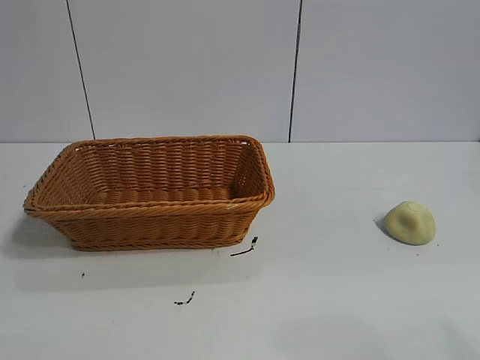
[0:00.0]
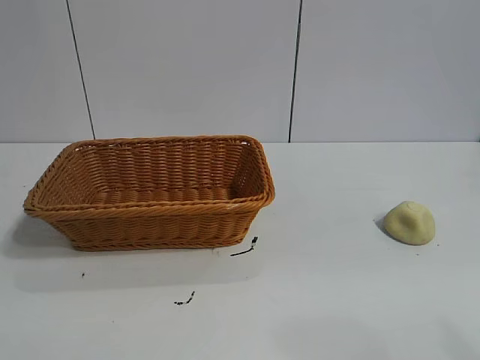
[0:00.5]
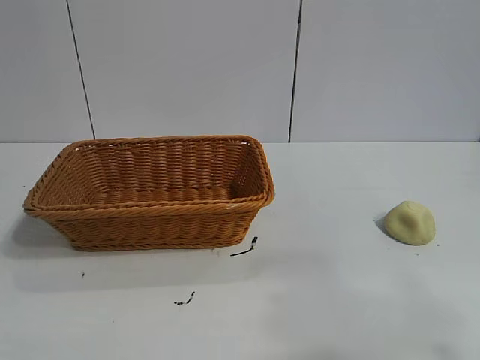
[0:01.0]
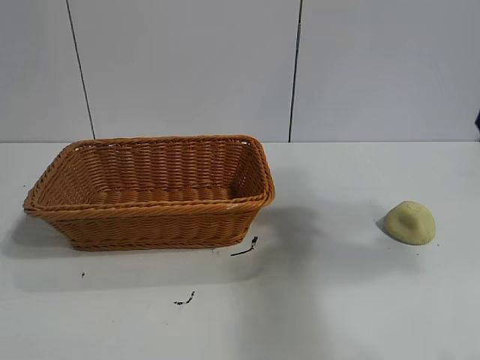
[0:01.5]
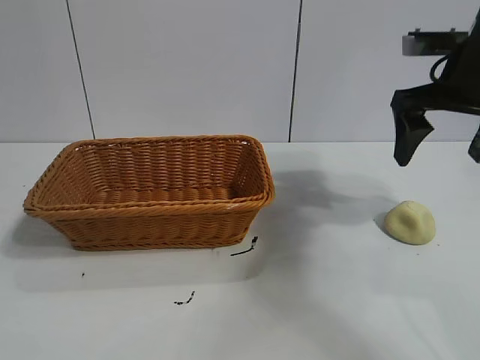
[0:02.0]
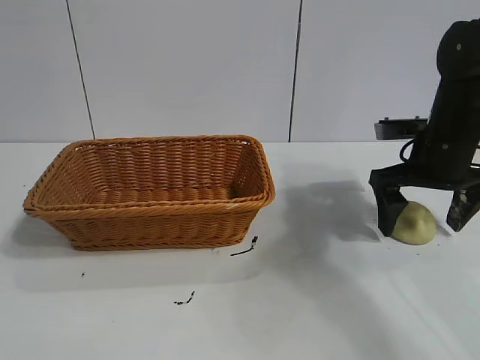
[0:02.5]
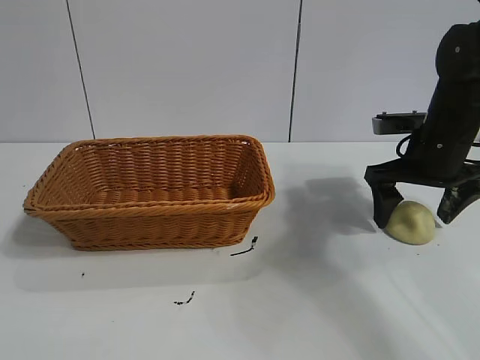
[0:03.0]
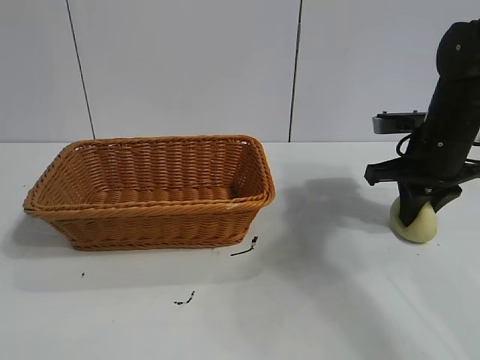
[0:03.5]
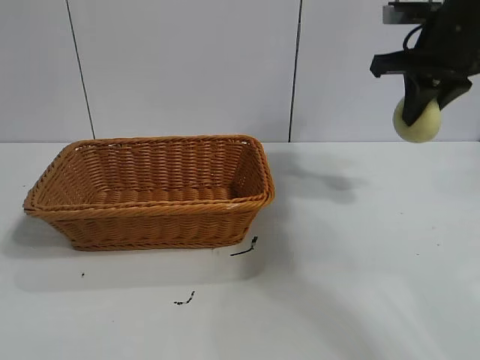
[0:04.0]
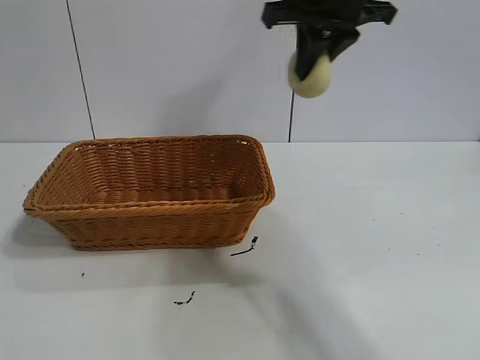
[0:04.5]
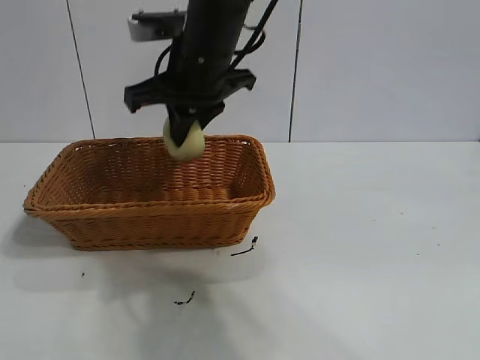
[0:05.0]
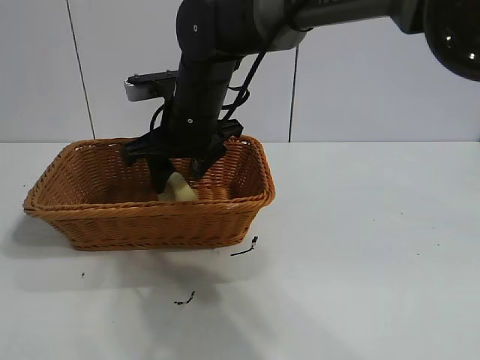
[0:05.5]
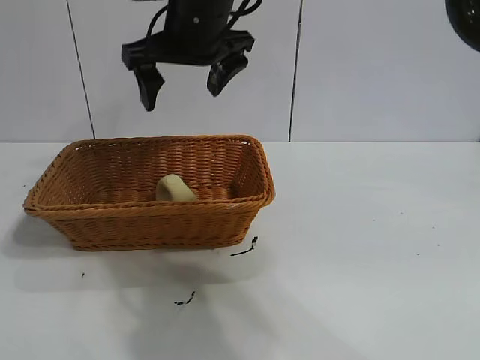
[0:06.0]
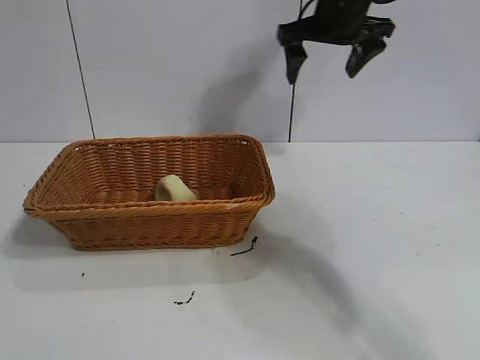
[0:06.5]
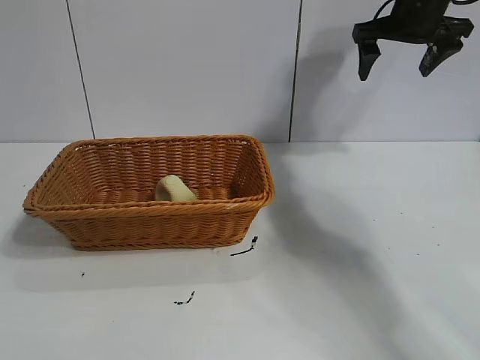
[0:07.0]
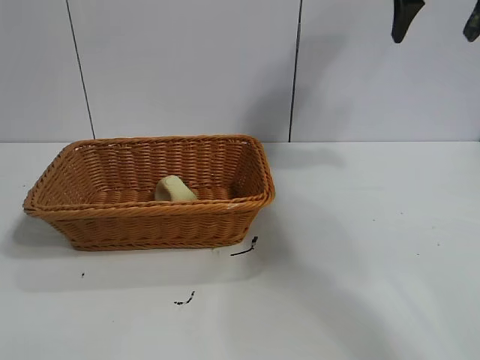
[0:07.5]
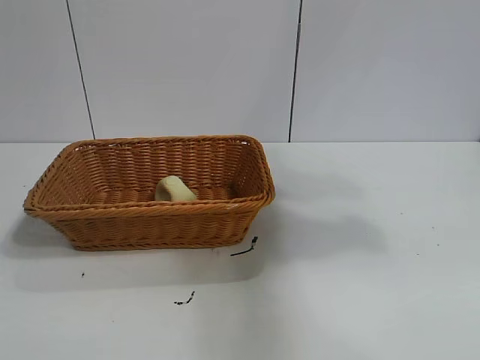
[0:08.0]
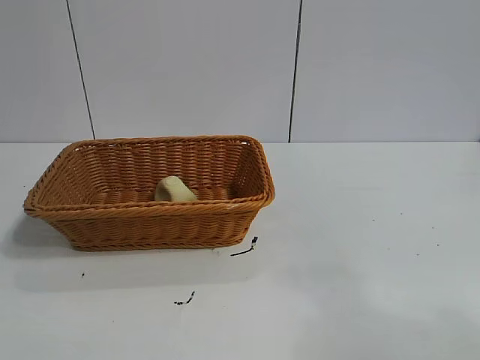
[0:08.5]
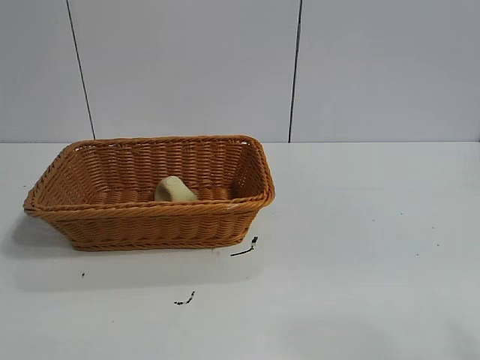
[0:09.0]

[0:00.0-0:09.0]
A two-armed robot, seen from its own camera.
Task of the whole recording: pick up the egg yolk pastry and put it into the basket.
Step, 0:01.0 to 0:03.0: Grasp egg yolk pastry with right gripper.
Step, 0:03.5 to 0:05.5: Place the egg yolk pastry in the basket with right gripper.

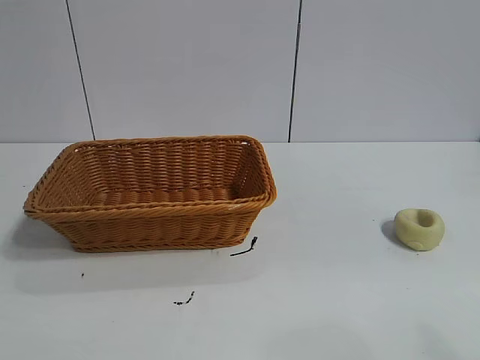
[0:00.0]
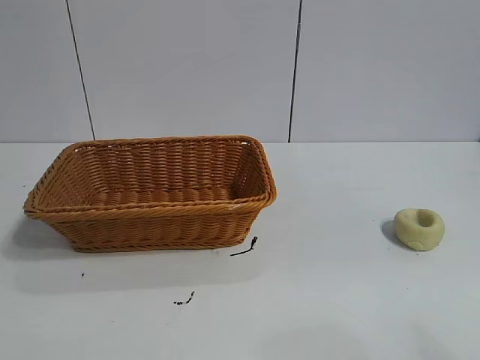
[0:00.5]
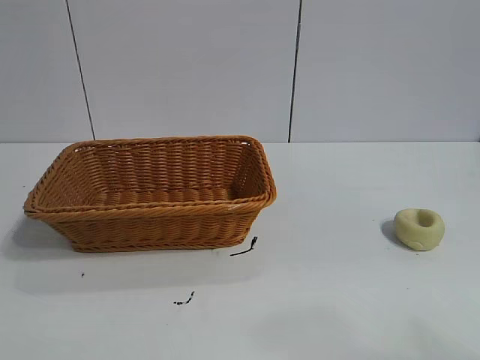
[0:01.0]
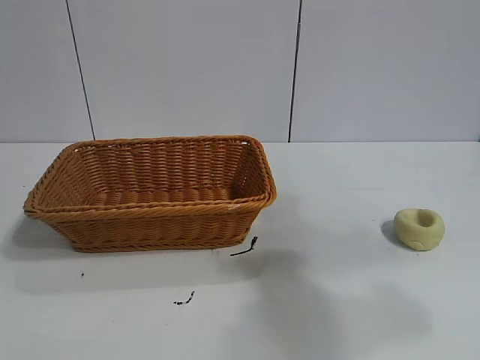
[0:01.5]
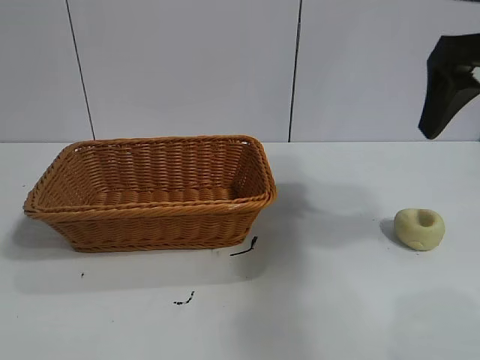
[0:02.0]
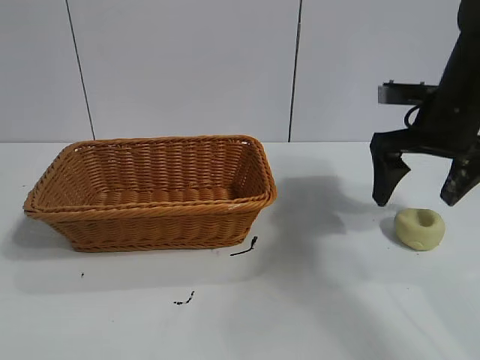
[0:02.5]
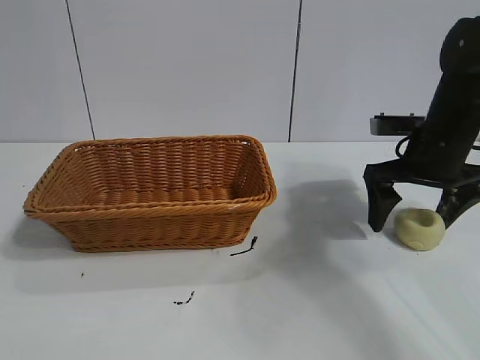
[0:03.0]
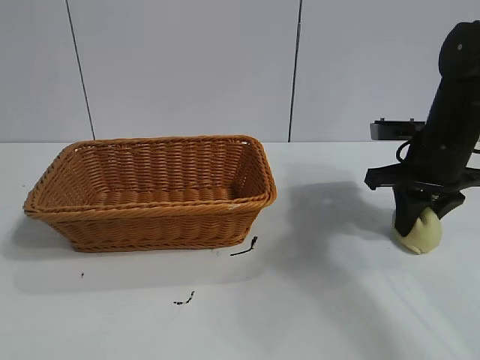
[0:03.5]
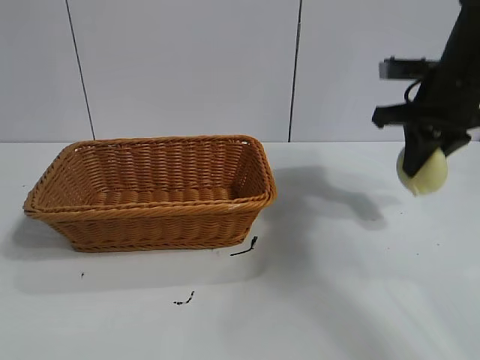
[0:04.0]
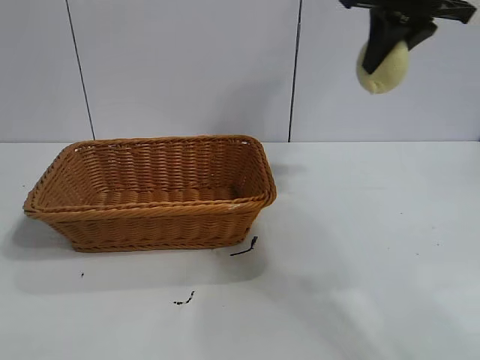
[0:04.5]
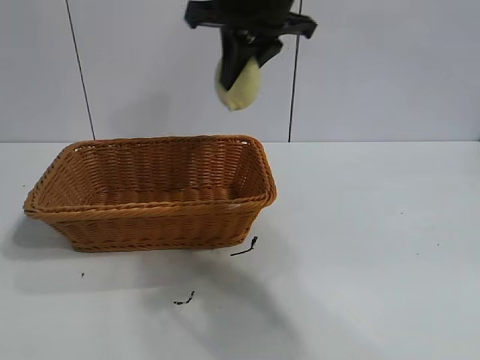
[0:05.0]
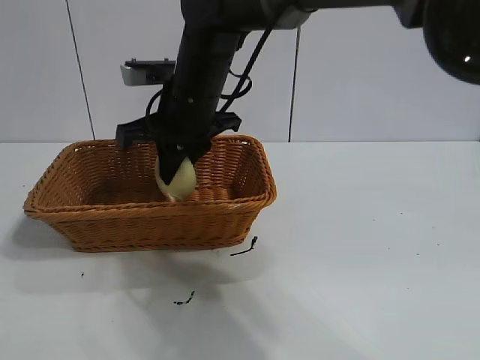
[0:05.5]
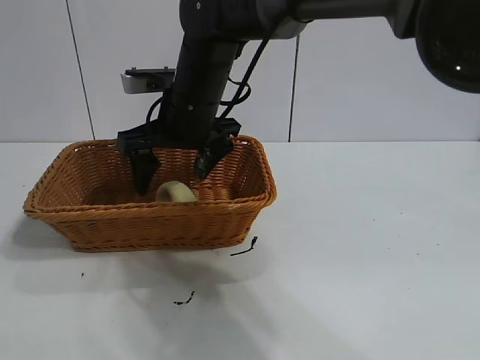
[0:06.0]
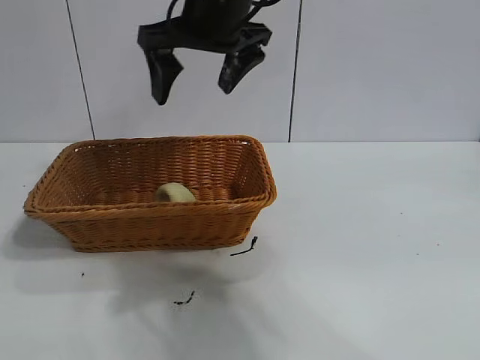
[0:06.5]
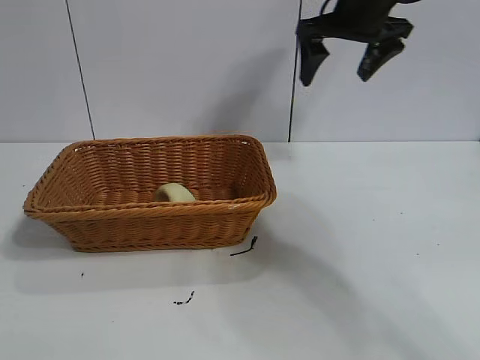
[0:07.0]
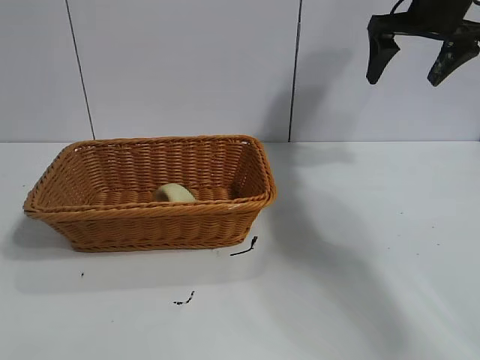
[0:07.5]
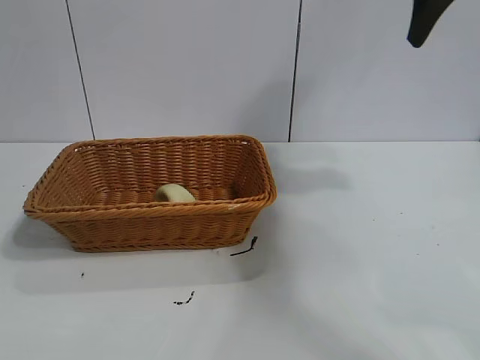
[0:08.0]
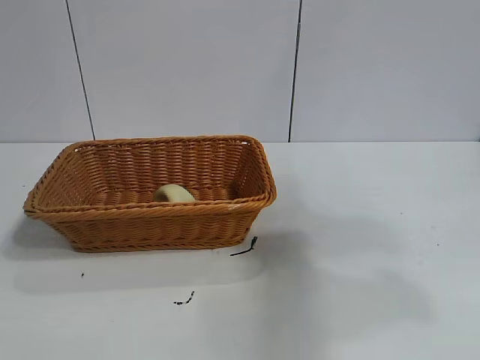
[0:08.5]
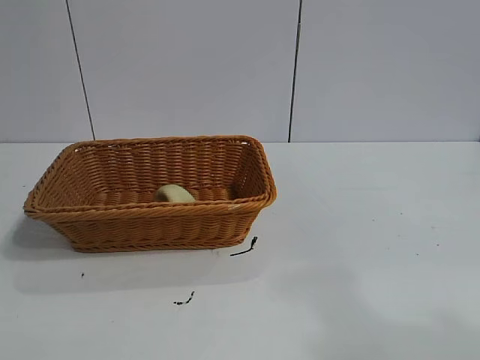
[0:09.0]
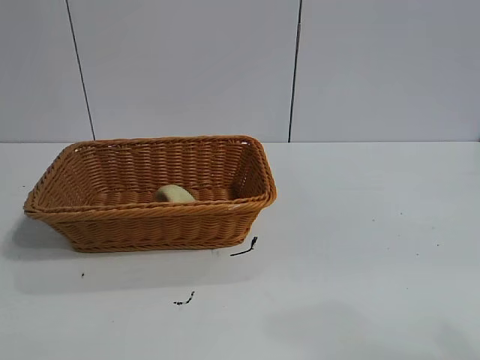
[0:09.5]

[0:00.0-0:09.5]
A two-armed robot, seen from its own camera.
Task of the whole recording: pick up the egg yolk pastry and put it into the basket.
Step, 0:00.0 to 0:03.5: Grasp egg yolk pastry with right gripper.
Step, 0:04.0 to 0:05.5: Place the egg yolk pastry in the basket with right gripper.

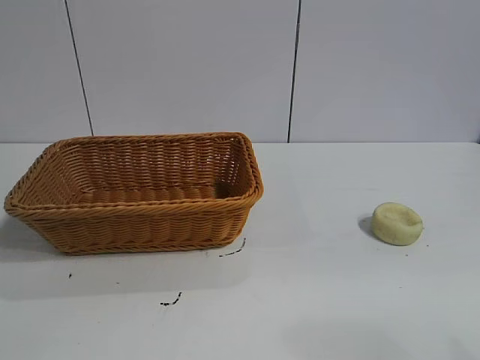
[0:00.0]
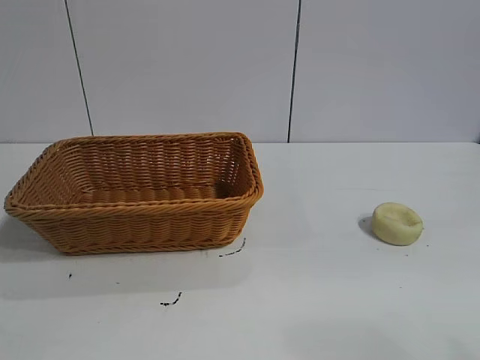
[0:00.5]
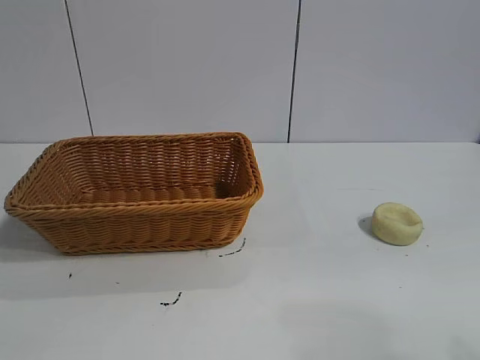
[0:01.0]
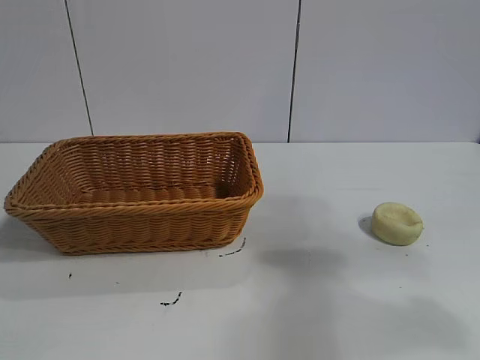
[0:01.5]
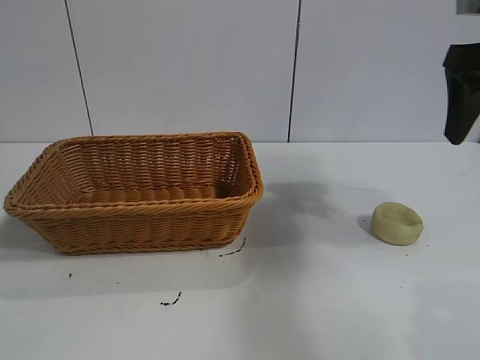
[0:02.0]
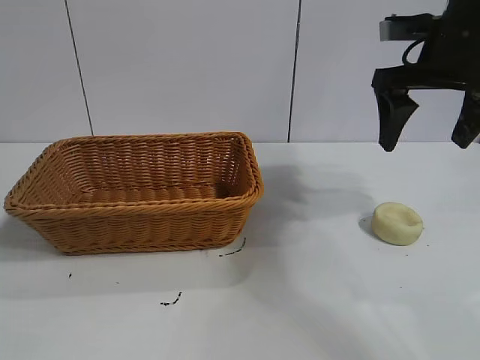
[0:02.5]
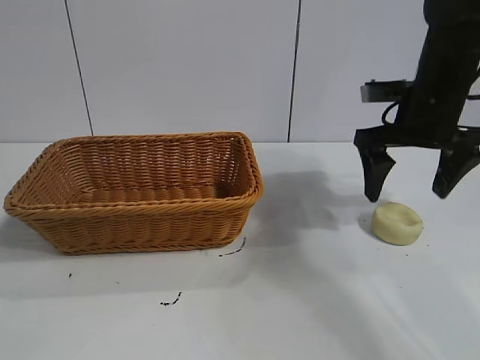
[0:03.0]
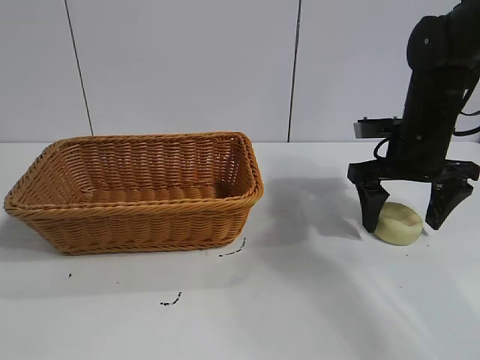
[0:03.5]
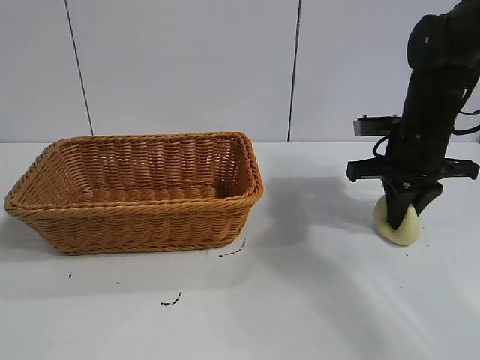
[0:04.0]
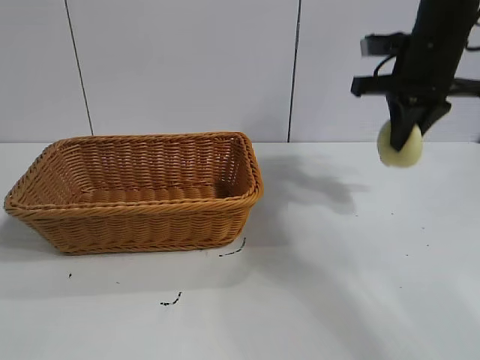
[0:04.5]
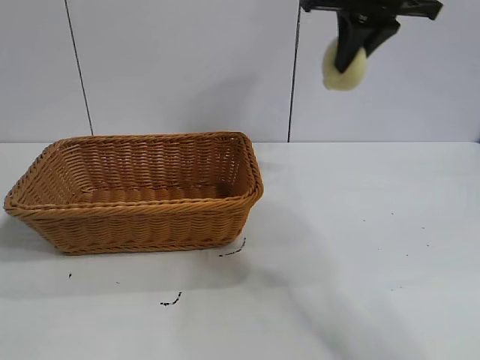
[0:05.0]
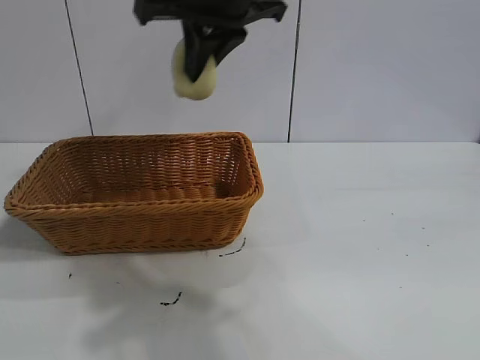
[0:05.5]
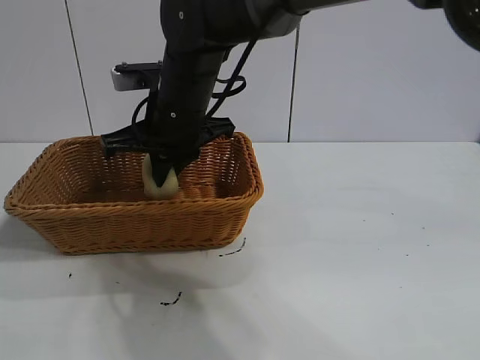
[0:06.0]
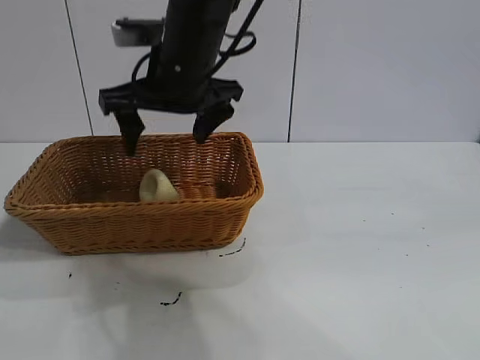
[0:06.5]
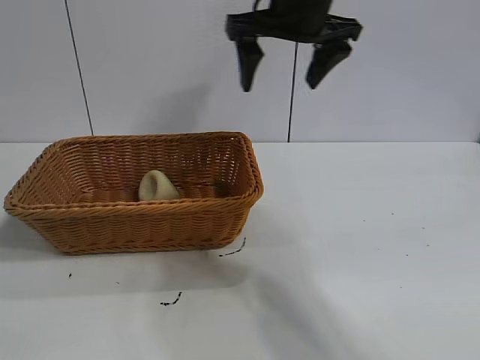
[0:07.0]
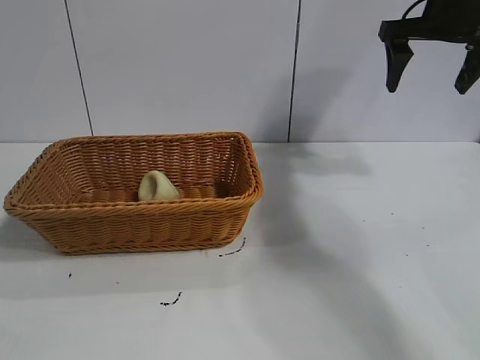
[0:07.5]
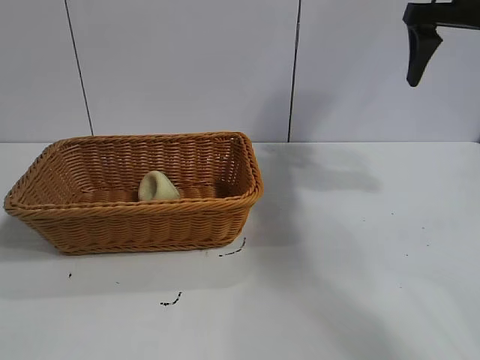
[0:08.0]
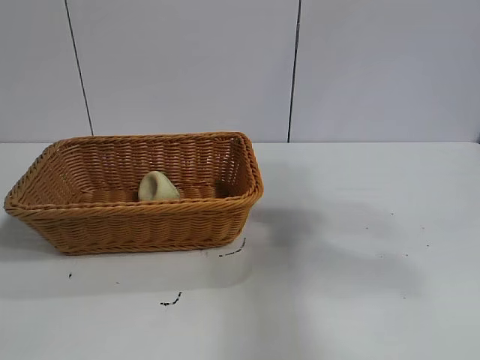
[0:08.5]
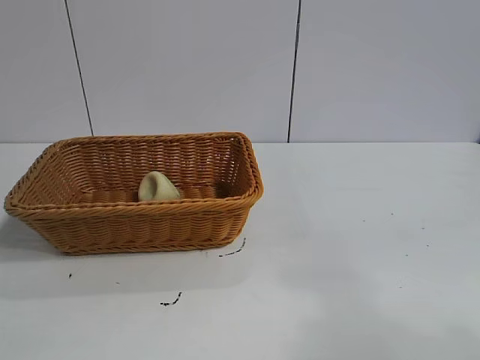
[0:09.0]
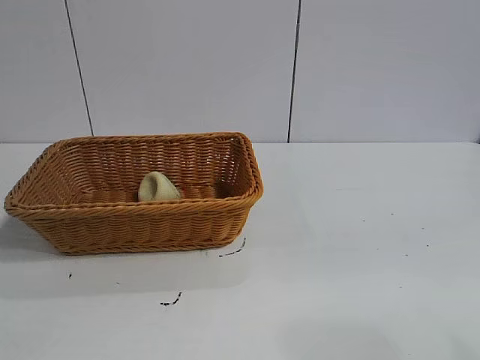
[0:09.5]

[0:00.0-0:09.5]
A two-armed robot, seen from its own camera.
Task of the whole recording: pick up the egg yolk pastry and put it into the basket.
Step, 0:01.0 to 0:04.0: Grasp egg yolk pastry with right gripper.
Step, 0:04.5 to 0:06.0: Place the egg yolk pastry in the basket with right gripper.
